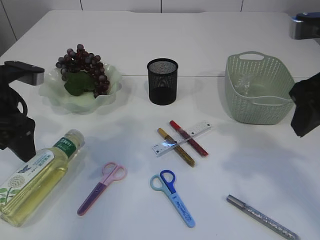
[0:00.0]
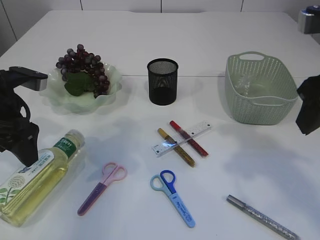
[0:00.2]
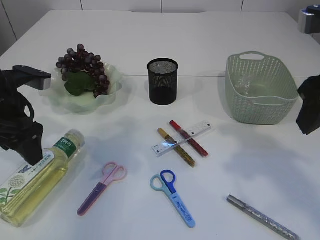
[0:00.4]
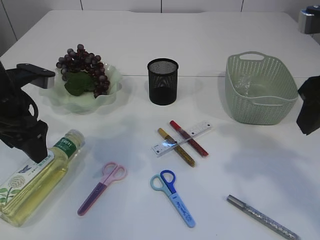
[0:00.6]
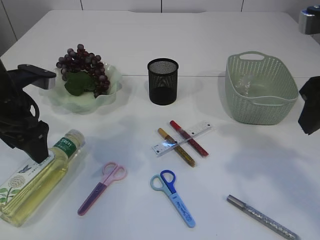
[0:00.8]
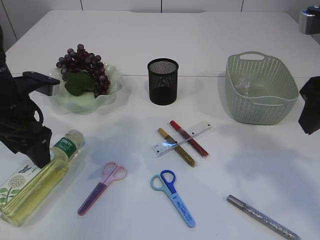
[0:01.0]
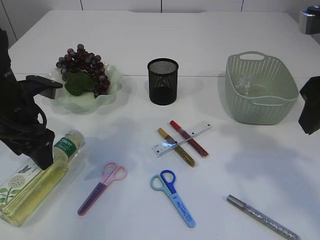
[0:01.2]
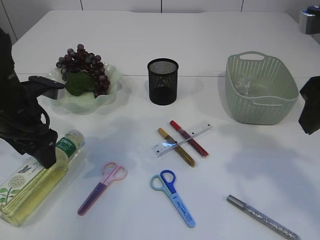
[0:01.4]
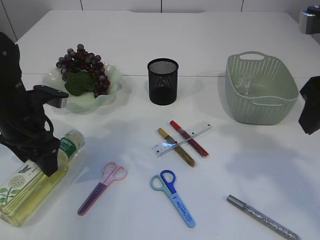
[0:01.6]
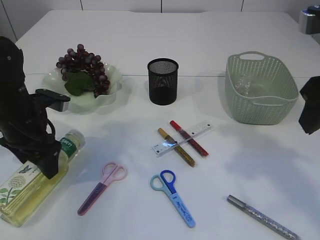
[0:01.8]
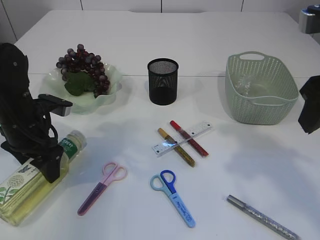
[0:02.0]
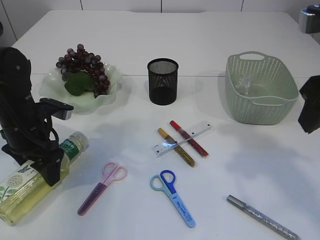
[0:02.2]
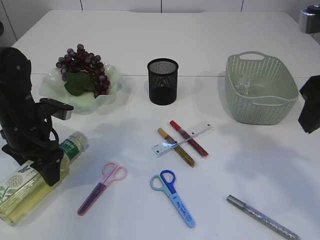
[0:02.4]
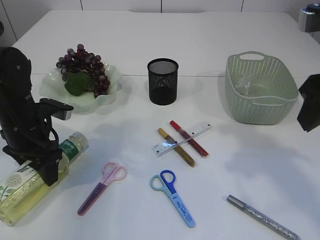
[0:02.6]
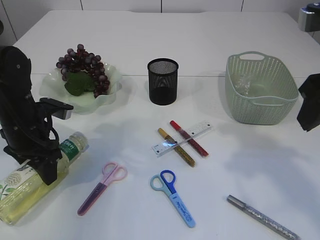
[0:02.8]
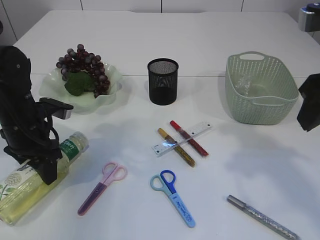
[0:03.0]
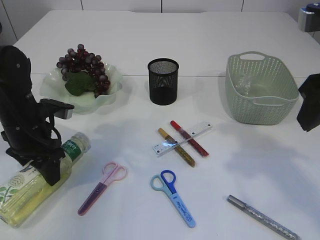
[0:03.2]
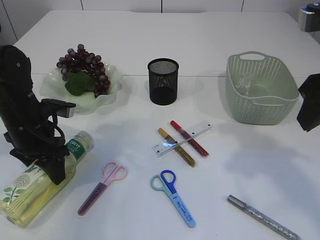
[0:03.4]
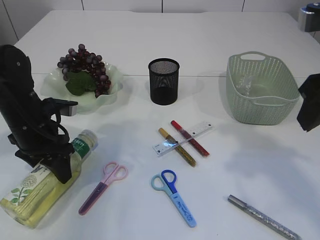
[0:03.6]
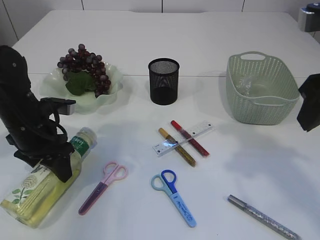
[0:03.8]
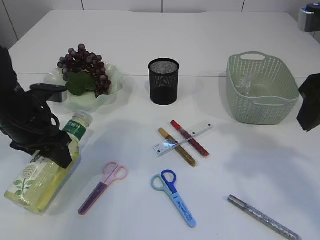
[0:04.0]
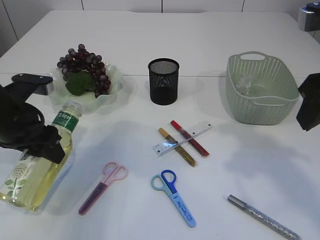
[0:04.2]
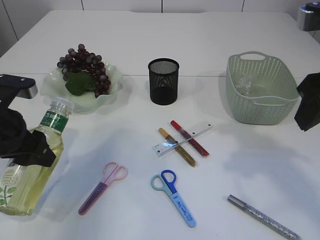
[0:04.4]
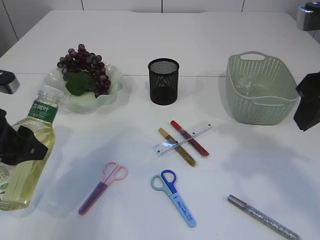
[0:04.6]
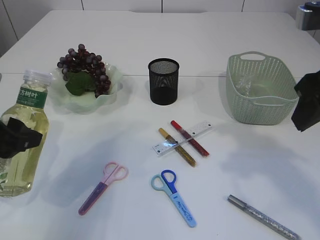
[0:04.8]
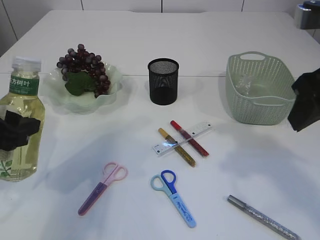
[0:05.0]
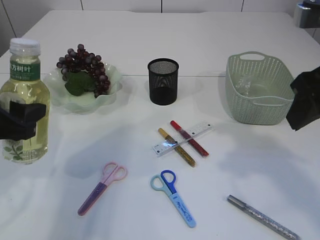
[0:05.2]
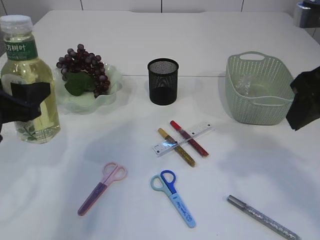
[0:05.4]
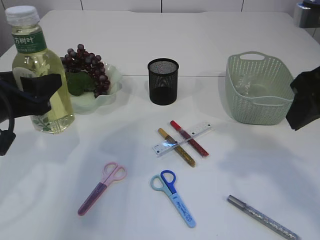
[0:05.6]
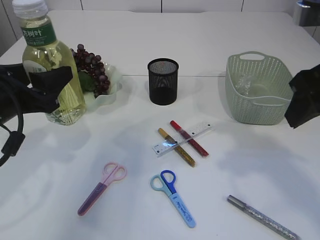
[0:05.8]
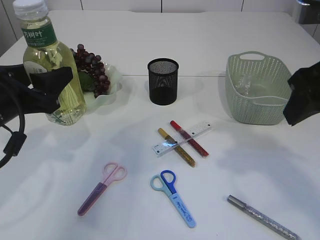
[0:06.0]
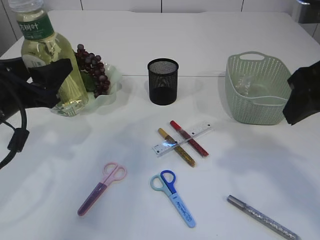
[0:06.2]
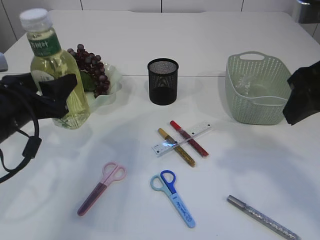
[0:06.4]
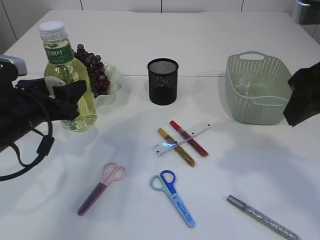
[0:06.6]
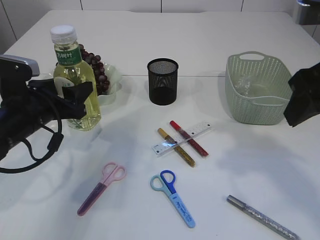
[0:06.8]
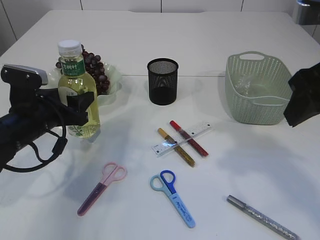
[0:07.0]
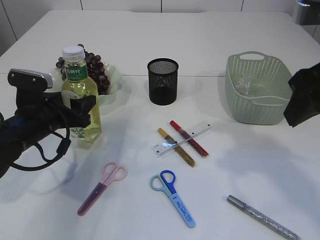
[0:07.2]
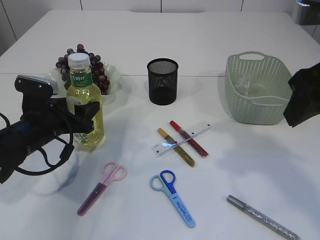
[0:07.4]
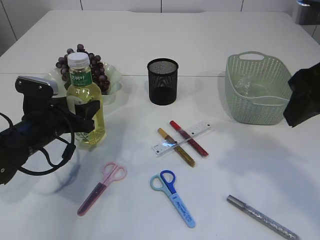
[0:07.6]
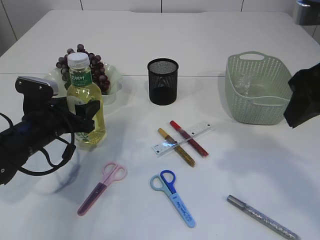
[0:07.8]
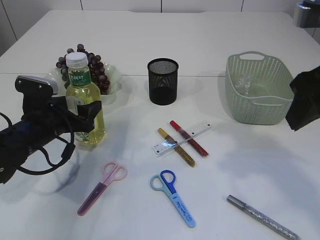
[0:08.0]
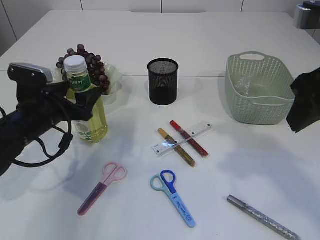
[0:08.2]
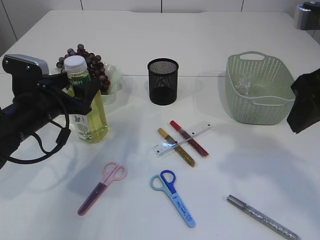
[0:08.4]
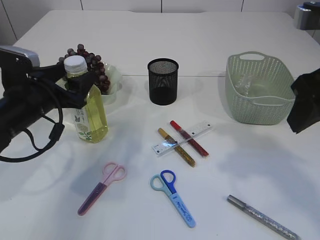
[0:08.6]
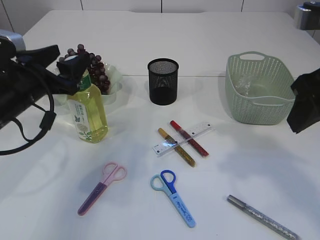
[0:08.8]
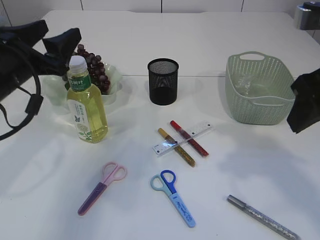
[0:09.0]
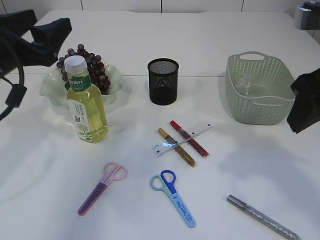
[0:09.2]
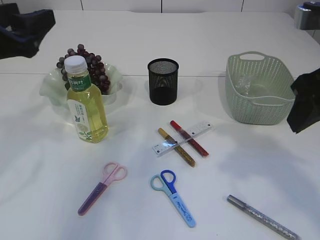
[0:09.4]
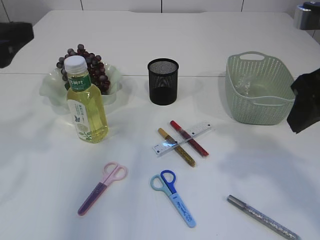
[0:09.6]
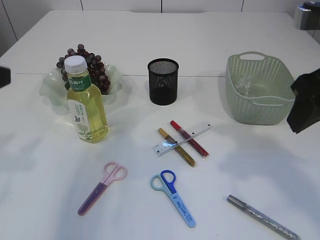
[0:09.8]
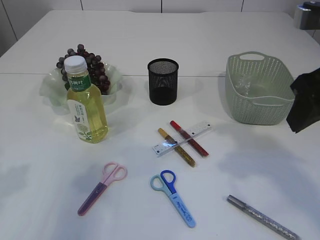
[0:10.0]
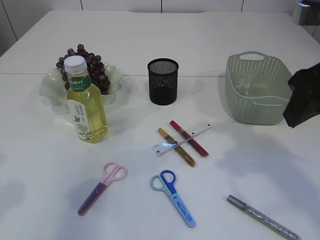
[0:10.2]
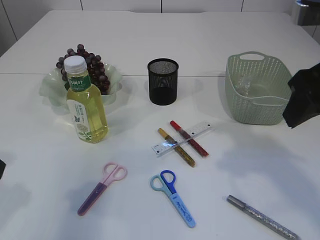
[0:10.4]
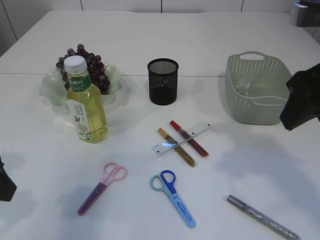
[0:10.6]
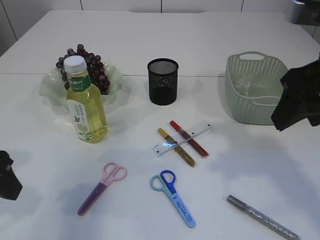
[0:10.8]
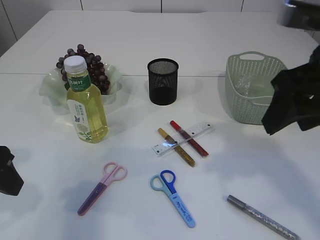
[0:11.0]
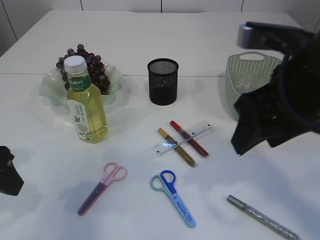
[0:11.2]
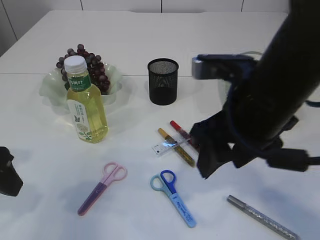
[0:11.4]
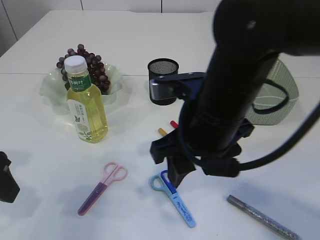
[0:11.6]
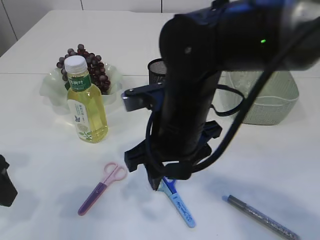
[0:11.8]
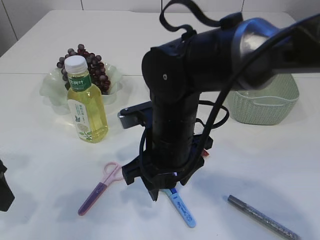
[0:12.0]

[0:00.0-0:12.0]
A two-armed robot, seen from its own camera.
Step, 0:00.0 to 0:04.6: Pick up the bottle with the left arm.
Step, 0:04.8 to 0:09.2: Place the bottle.
0:00.0 to 0:01.6: The left gripper goes some 5 cm downward.
0:01.6 to 0:03.0: The grippers make only small movements.
0:03.0 to 0:04.4: The left gripper travels backward and upward by about 10 cm.
0:06.0 to 0:07.6: The left gripper shifts approximately 15 cm downward and forward.
0:07.6 to 0:09.0: The left gripper moves upward, about 15 cm.
0:09.0 to 0:10.4: The left gripper goes some 15 cm backward.
0:10.4 to 0:12.0: The right gripper goes approximately 25 cm to the left and downward.

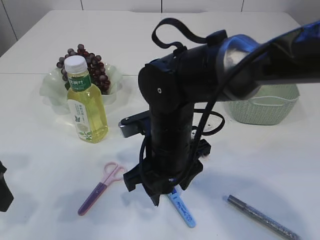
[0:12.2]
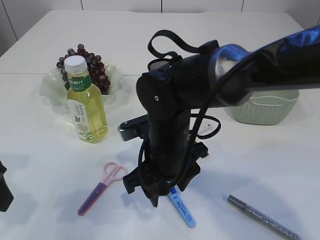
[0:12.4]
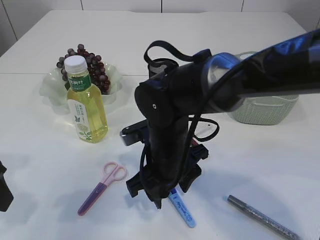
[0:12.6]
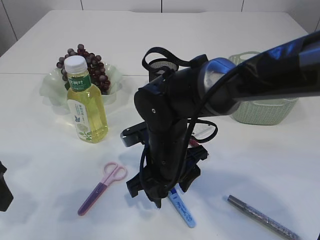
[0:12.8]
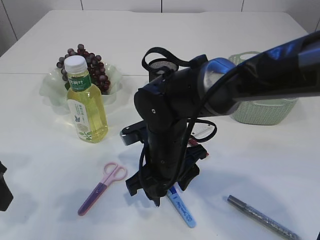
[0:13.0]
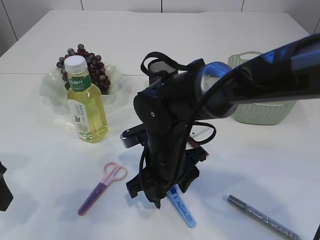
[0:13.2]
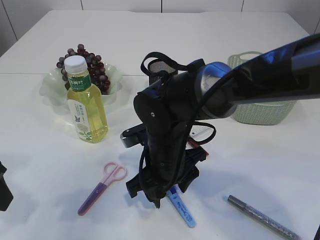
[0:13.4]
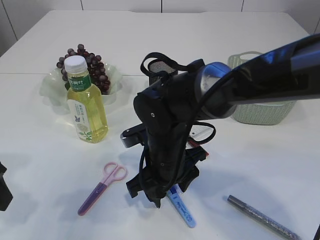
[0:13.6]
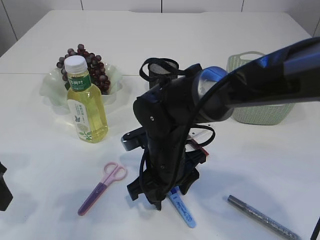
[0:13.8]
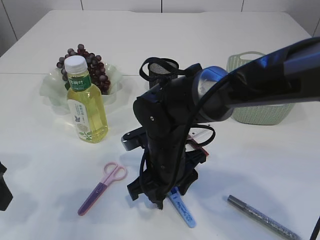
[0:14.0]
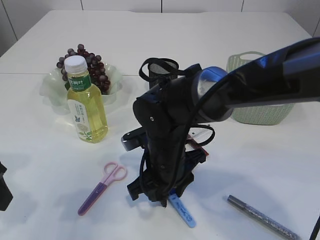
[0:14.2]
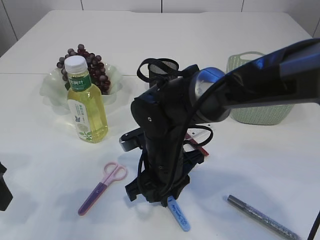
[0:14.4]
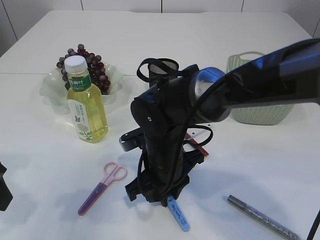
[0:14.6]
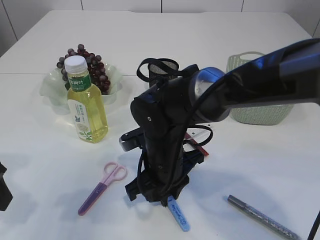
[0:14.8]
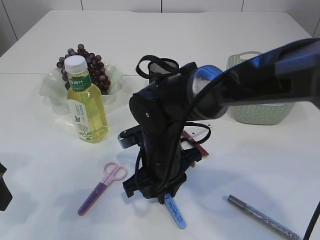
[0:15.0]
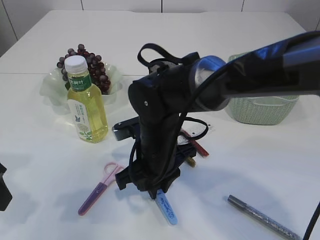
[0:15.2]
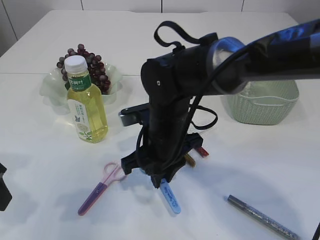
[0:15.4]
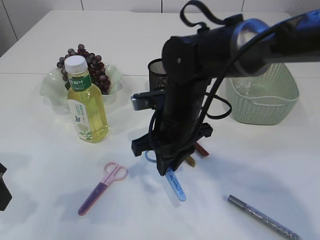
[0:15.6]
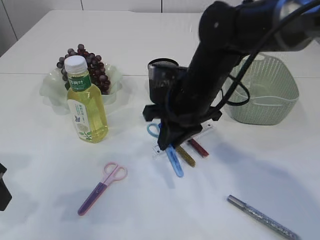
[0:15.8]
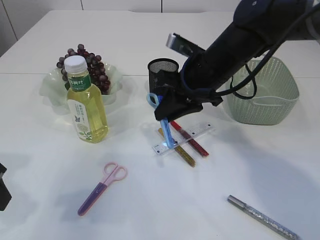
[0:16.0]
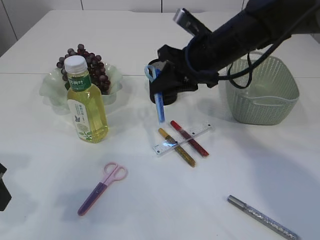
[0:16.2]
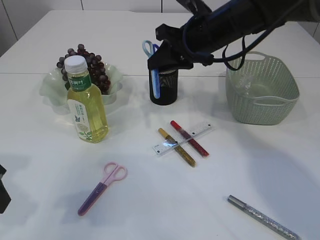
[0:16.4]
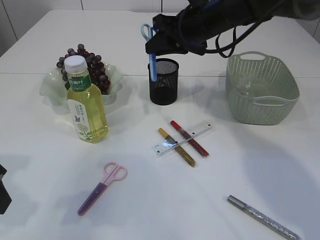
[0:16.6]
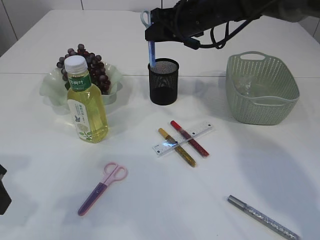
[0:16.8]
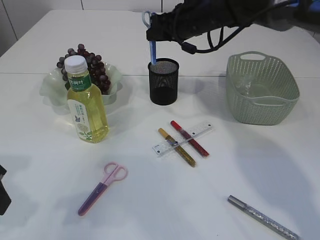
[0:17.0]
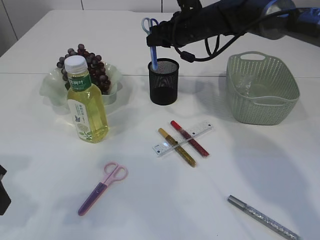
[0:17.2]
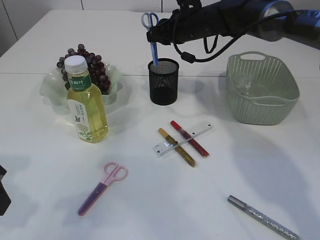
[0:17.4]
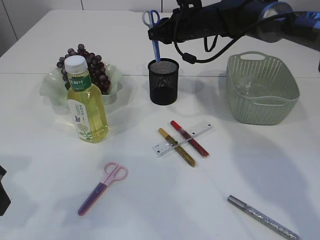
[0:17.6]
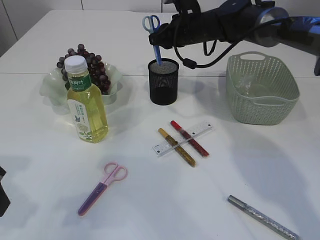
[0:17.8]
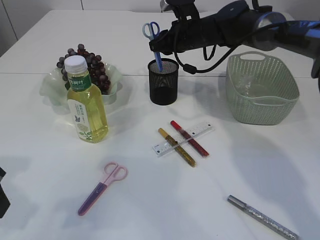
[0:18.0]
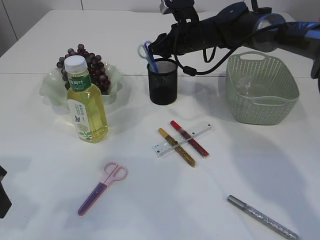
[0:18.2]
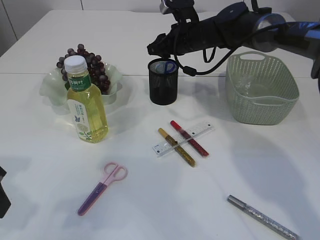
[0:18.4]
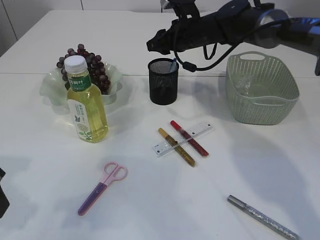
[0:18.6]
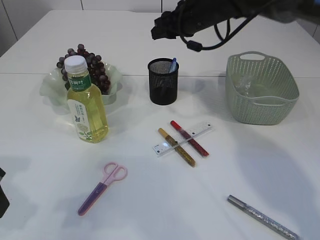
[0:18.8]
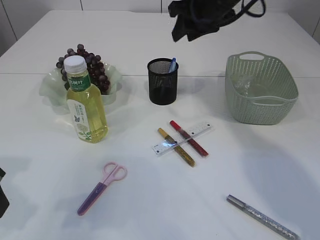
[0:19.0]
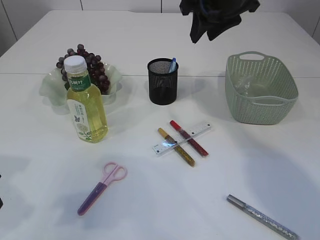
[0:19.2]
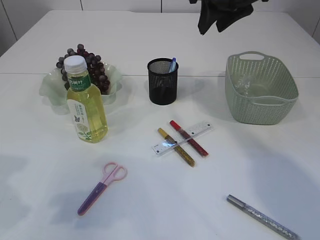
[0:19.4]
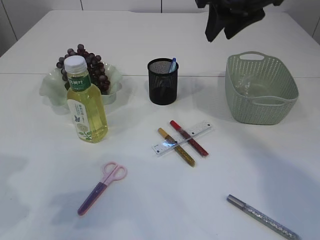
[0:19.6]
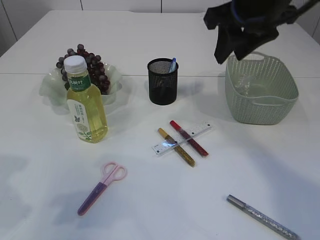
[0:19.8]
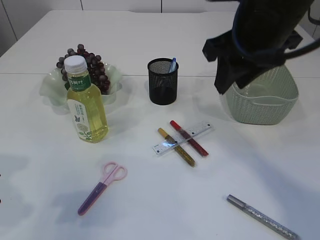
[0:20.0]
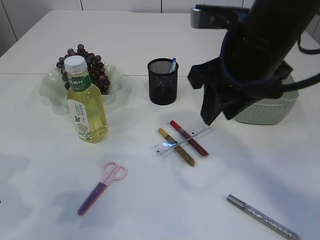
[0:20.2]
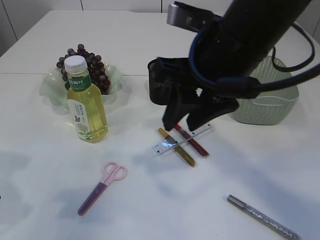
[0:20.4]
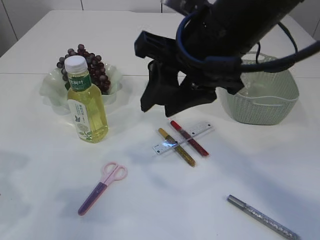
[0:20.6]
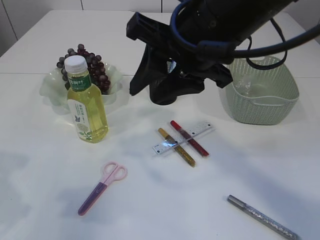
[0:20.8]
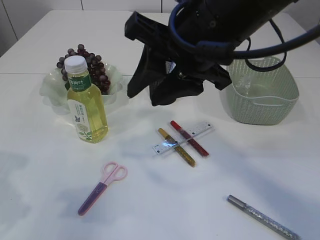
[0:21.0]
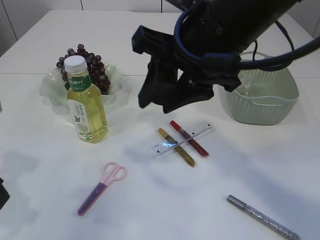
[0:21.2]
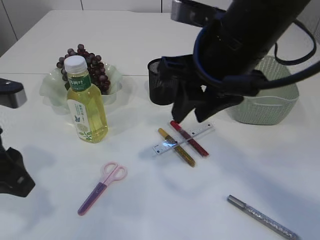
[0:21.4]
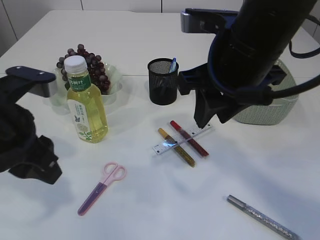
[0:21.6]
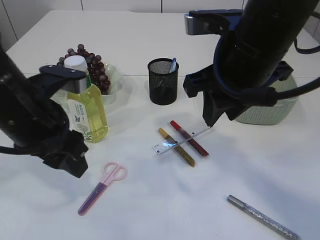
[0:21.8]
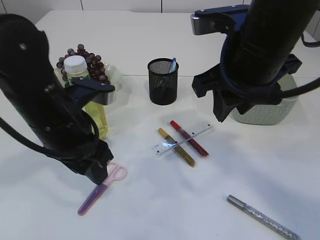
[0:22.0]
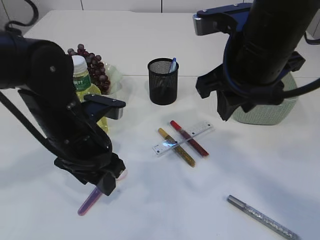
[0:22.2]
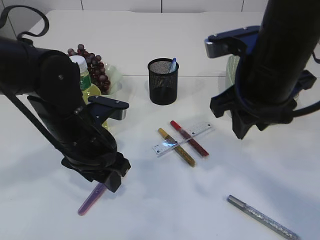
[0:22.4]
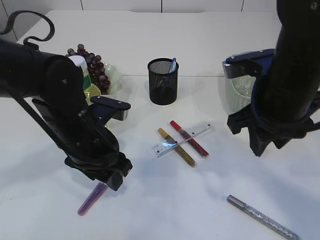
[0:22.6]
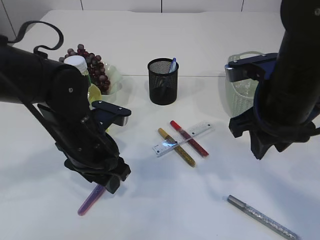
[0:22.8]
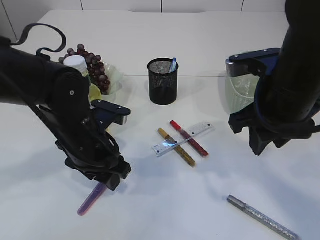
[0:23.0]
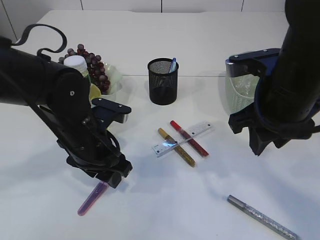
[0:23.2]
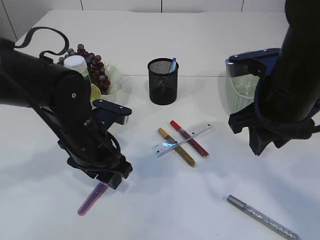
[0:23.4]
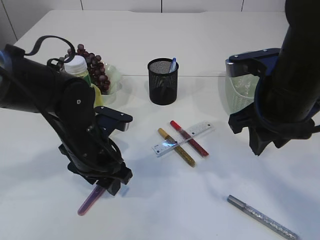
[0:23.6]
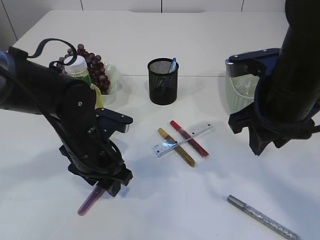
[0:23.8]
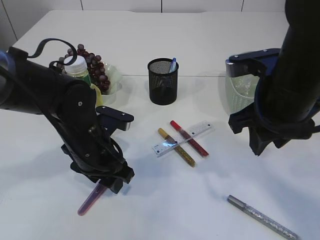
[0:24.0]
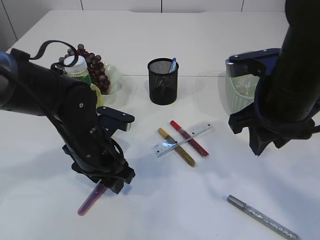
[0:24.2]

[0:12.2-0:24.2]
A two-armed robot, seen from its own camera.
Step, 0:12.2 to 0:15.6: pick up the blue scissors.
Step, 0:15.8 to 0:18.8: Place the blue scissors into the pen holder.
0:12.2 to 0:13.8: The right gripper changes place by approximately 5 cm.
0:13.8 to 0:15.2: The right gripper closes its fingers.
0:15.2 to 0:16.6: The right gripper moves forward, upward and to the right, about 25 cm.
0:16.6 to 0:18.2: The right gripper heads forward and downward, covering roughly 10 cm.
0:18.2 to 0:19.8: The right gripper is displaced backward and upward by some 25 cm.
0:19.8 to 0:21.2: The right gripper moves to the left and backward, some 10 cm.
0:21.2 to 0:22.6: The right gripper travels to the right and downward by about 10 cm. The left gripper heads to the right, forward and downward, covering approximately 20 cm.
0:22.6 to 0:24.2: The grippers make only small movements.
